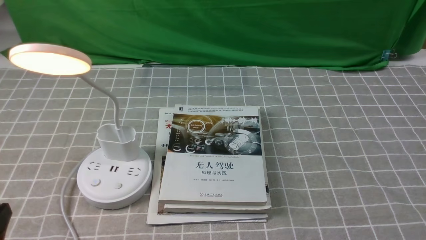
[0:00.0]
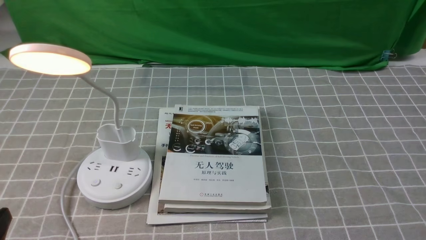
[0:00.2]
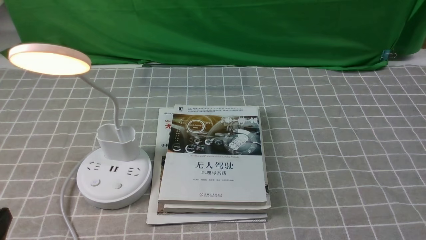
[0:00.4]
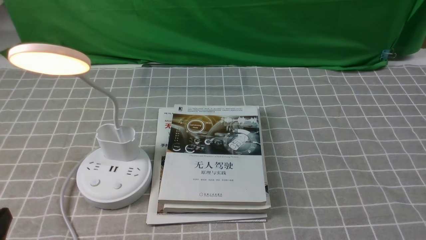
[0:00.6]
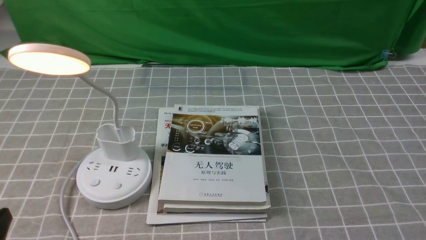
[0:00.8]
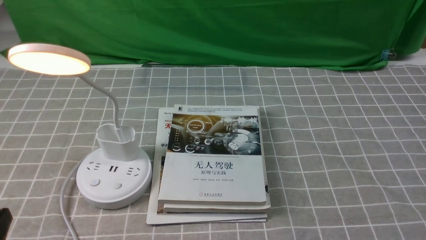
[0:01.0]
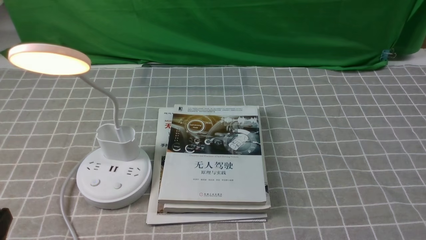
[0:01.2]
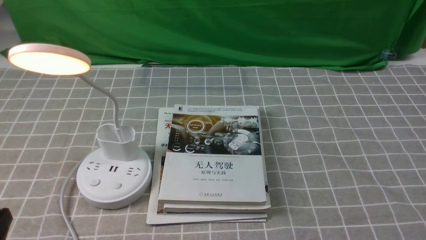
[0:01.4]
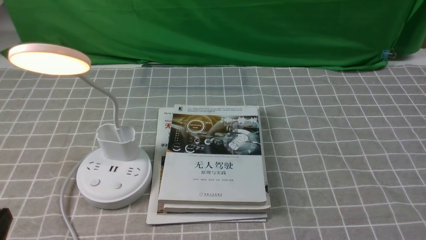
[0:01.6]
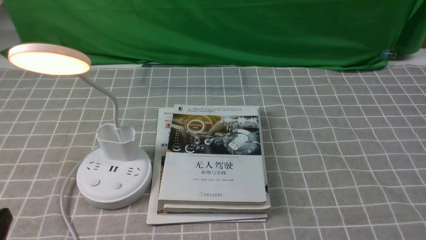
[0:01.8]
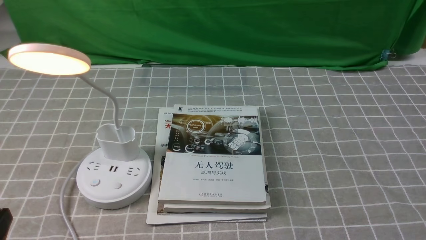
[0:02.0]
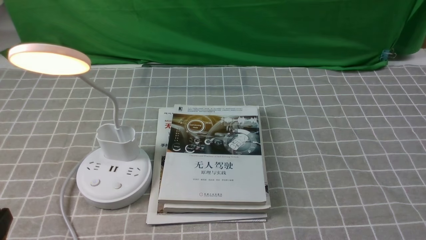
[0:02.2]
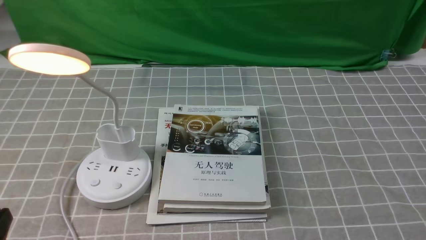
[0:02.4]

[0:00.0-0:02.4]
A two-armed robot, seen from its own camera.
0:01.2 to 0:02.4: Both grippers stay about where they are.

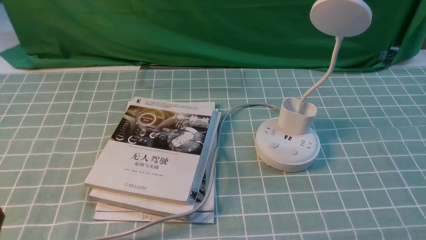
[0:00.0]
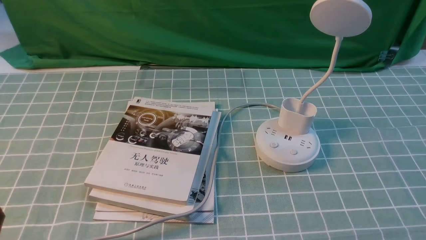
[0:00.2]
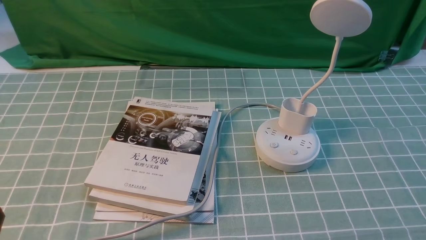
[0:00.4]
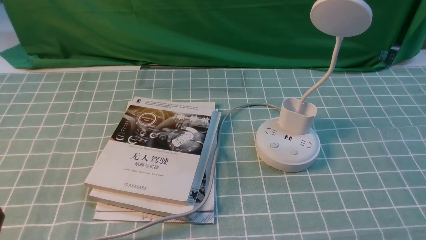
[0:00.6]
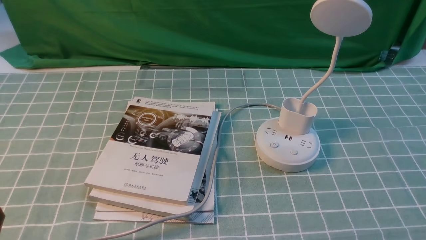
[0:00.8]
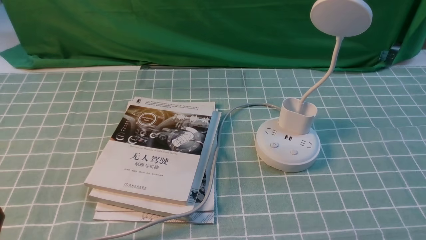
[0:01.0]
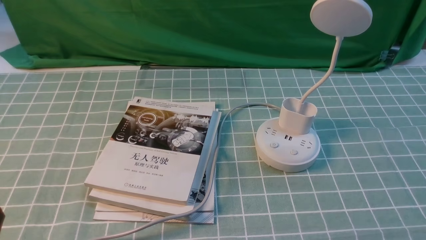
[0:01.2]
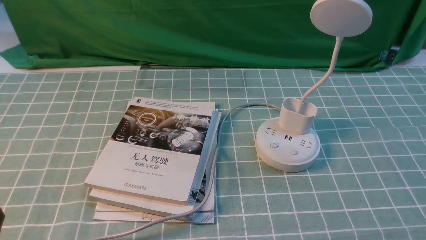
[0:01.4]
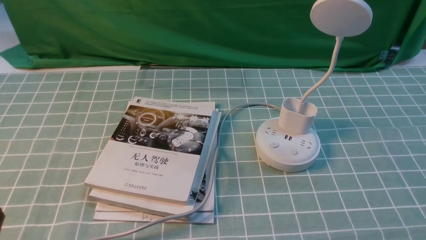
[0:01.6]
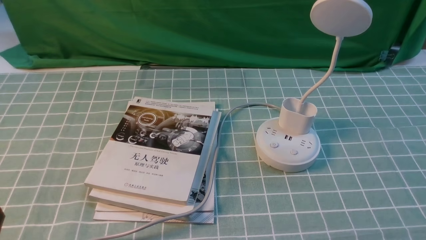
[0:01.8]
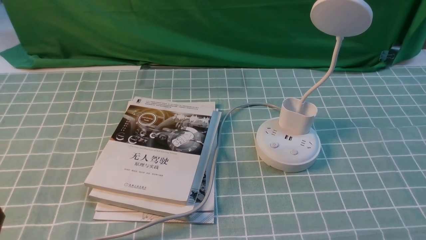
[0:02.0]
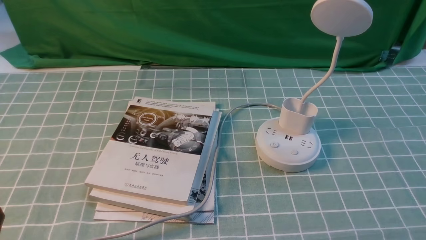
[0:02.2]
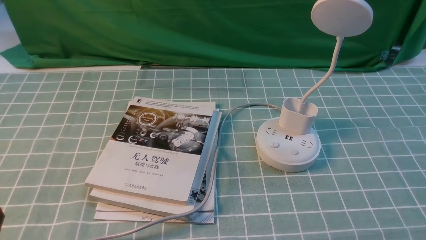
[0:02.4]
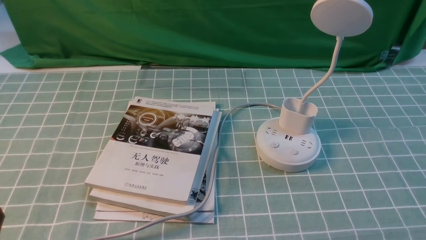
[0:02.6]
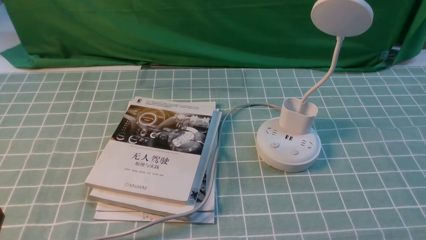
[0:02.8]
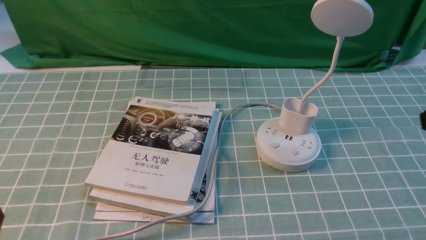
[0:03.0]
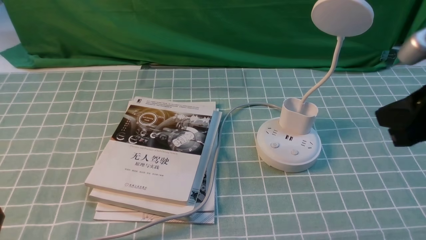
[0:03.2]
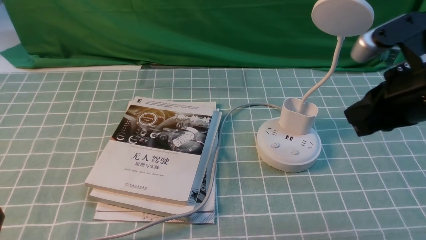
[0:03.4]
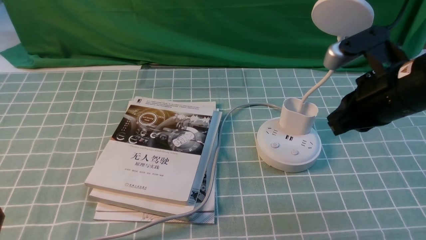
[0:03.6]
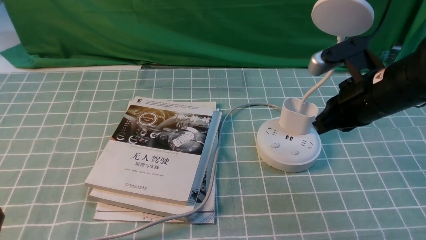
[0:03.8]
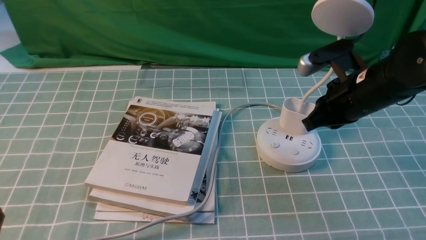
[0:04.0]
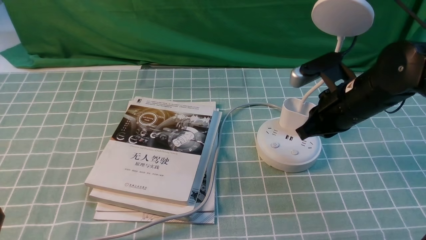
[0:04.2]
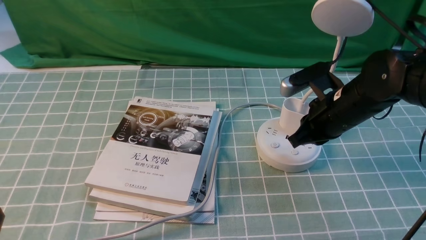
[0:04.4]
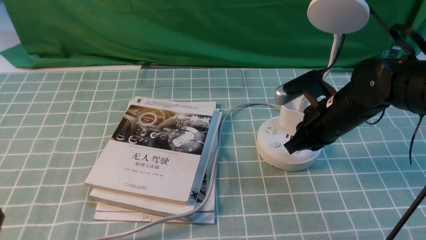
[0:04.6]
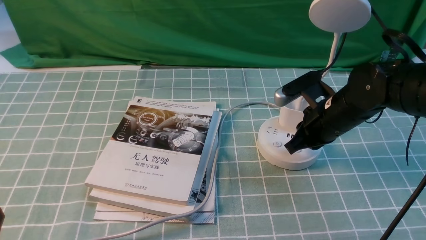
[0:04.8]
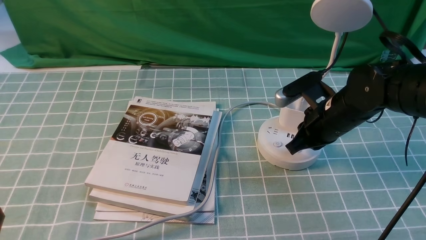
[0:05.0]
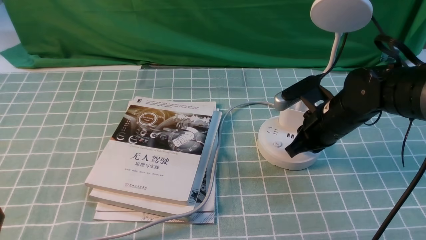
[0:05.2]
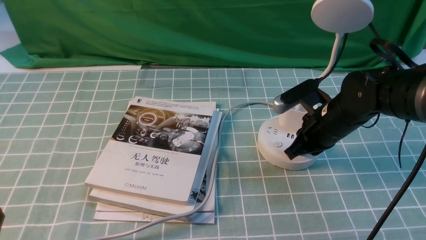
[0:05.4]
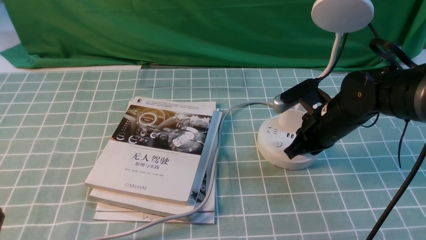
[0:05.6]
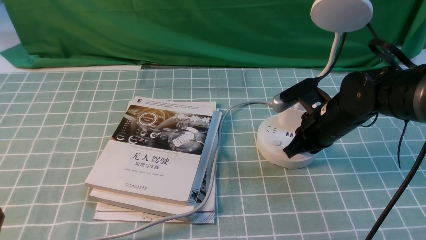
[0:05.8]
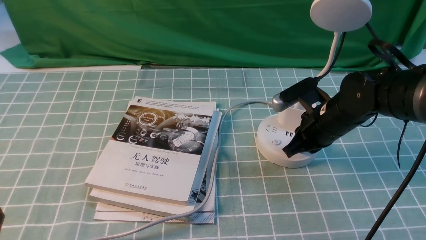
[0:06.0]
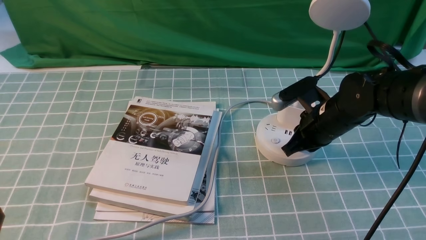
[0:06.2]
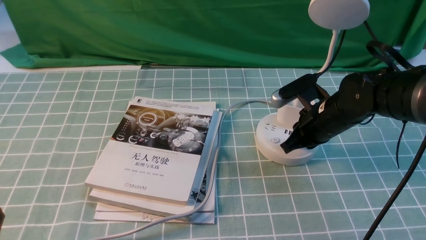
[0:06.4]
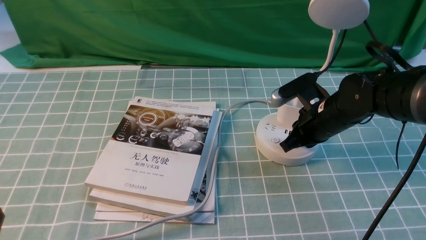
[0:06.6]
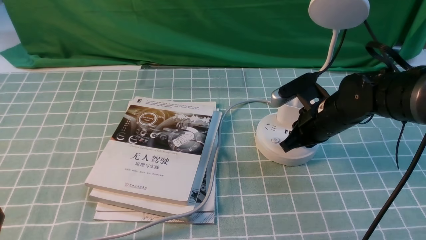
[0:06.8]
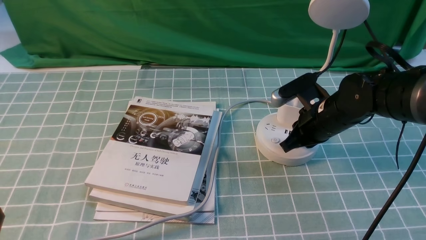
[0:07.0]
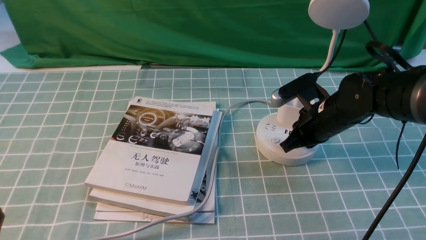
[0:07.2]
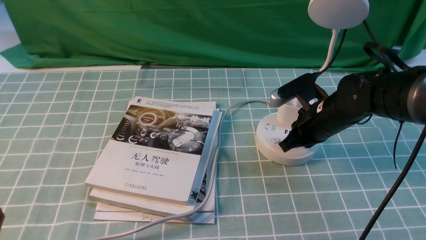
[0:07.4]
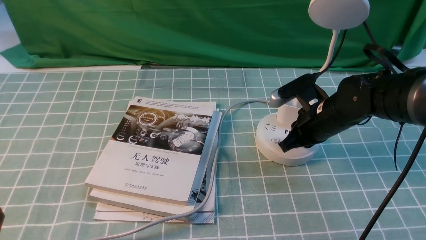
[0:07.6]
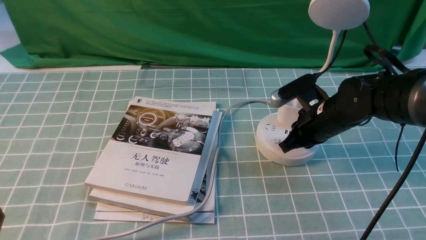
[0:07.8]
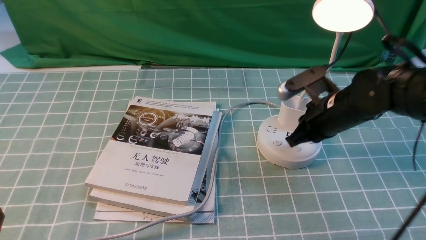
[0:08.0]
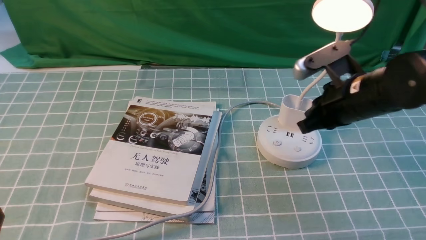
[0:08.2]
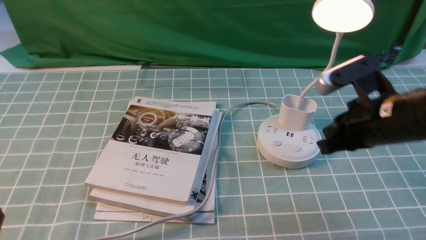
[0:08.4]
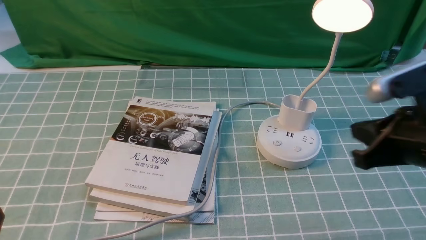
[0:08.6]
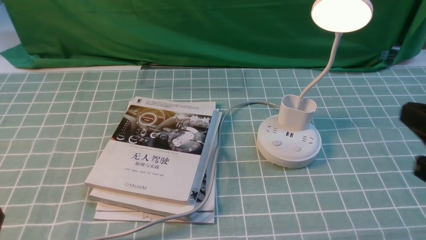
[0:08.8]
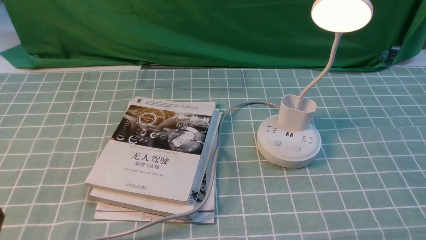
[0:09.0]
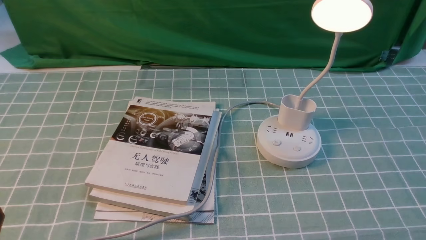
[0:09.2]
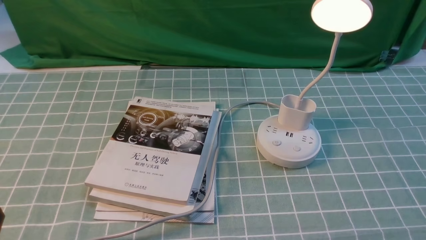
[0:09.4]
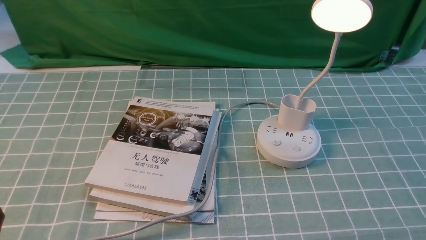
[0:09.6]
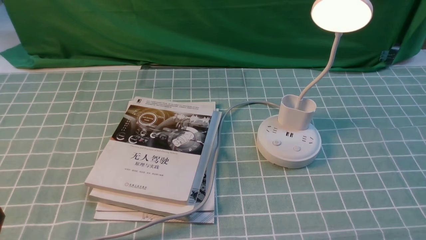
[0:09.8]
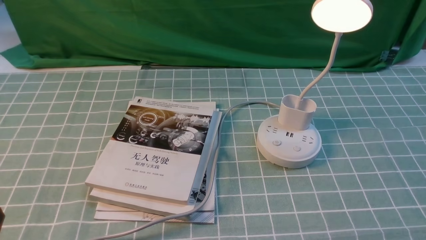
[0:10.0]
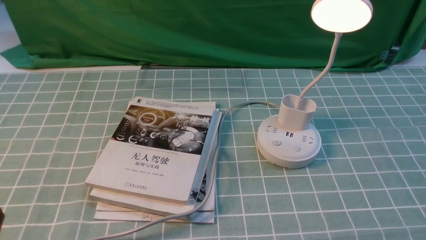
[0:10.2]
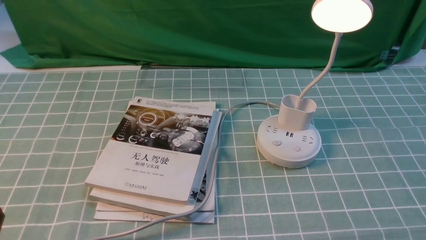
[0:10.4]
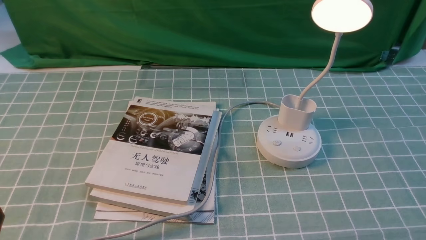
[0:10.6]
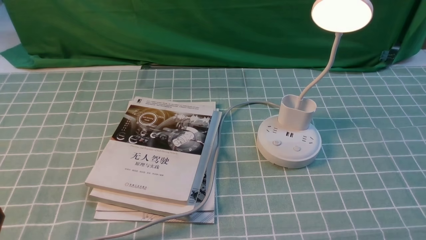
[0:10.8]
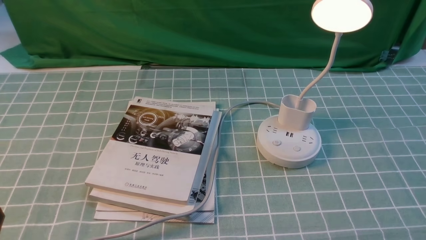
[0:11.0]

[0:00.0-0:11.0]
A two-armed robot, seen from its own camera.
Step, 0:00.0 to 0:08.2: use the right arm to press the button switch on the lamp holder.
0:01.6 to 0:03.2: The right gripper travels upward, forward and to the left by approximately 25 cm, and closes up.
0:03.2 to 0:04.8: The right gripper shifts approximately 20 cm downward, forward and to the left.
0:04.8 to 0:06.2: There are only small adjustments of the grippers.
0:06.2 to 0:07.8: Both grippers stay put.
0:07.8 to 0:09.4: The right gripper is displaced backward and to the right by approximately 30 cm.

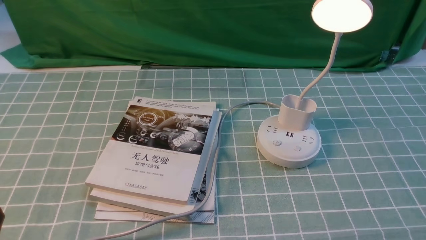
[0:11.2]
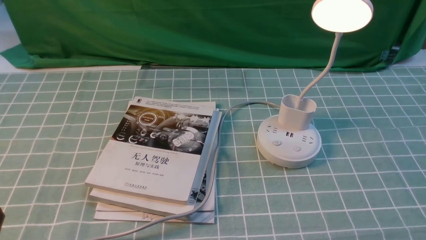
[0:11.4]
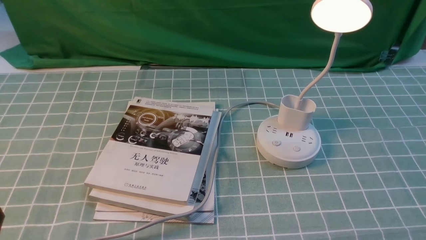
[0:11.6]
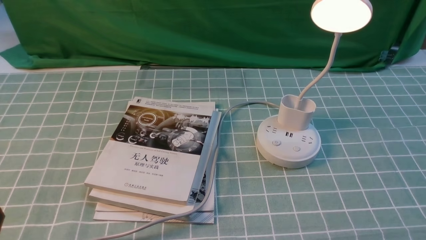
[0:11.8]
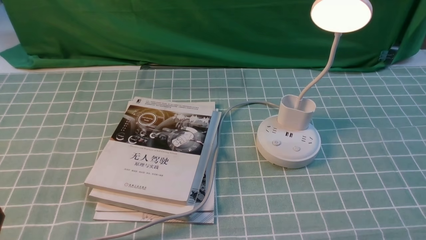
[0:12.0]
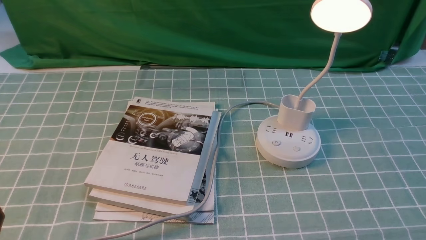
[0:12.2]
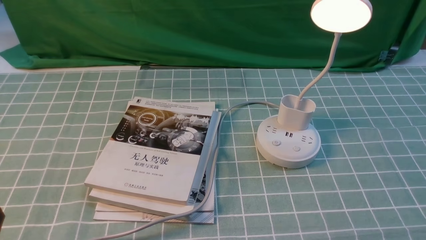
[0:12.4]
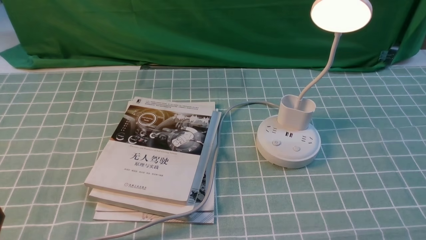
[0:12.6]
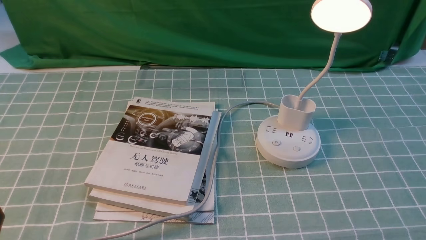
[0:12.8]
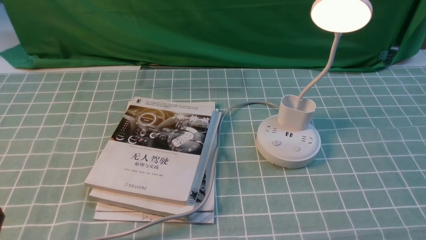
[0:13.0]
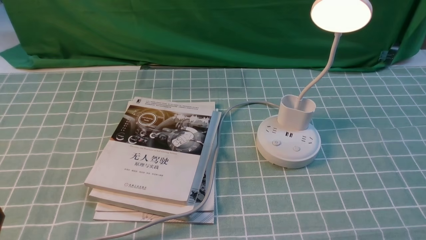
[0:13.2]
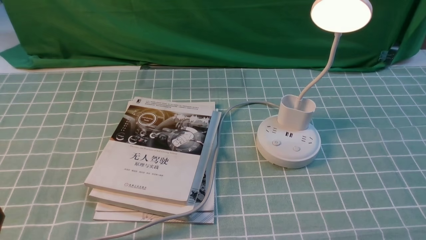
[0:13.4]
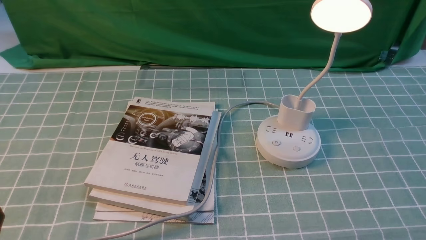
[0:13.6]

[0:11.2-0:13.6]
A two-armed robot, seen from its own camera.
0:11.2 to 0:13.6: Both grippers stay about where they are.
